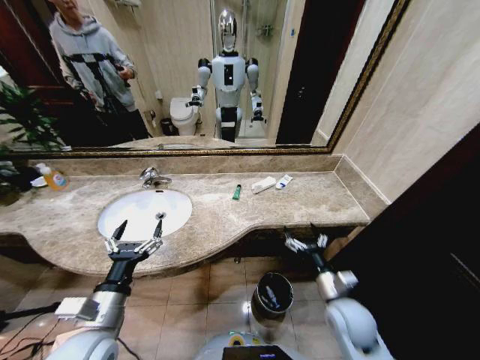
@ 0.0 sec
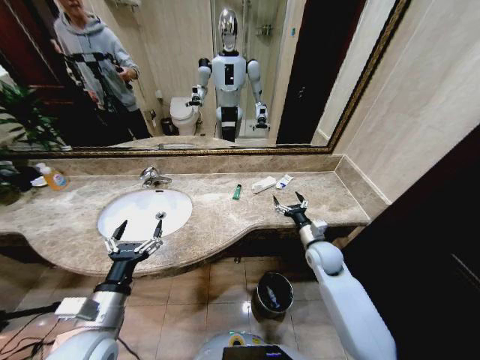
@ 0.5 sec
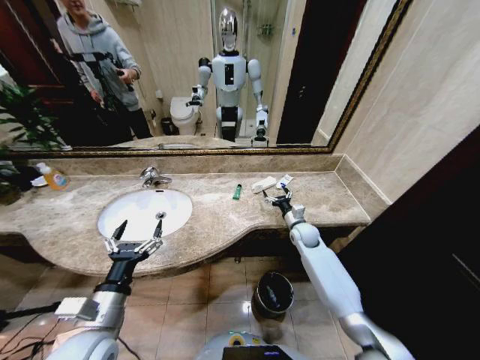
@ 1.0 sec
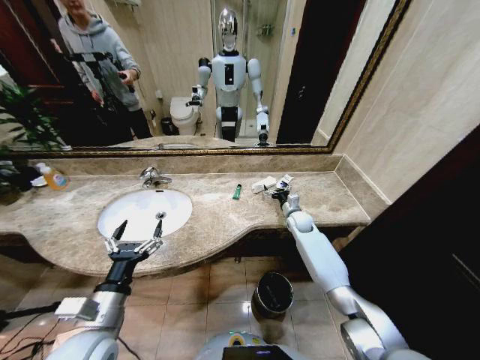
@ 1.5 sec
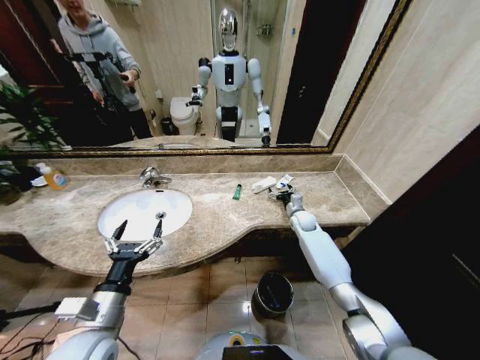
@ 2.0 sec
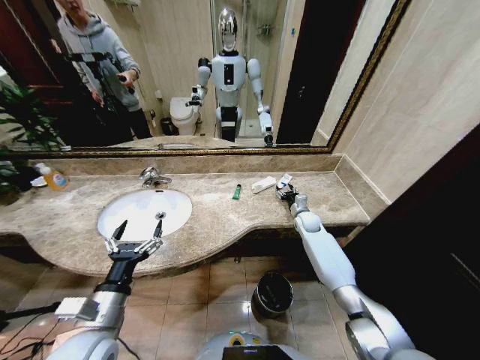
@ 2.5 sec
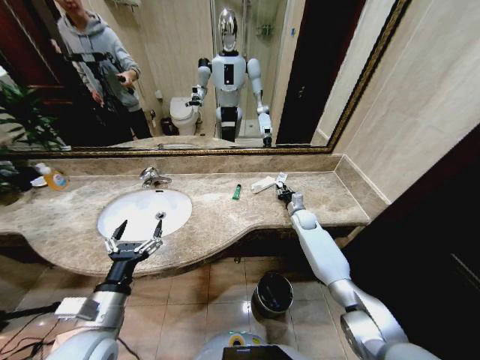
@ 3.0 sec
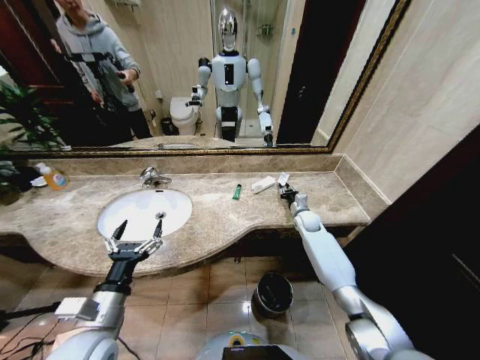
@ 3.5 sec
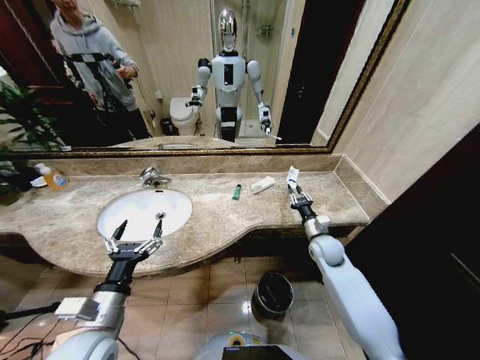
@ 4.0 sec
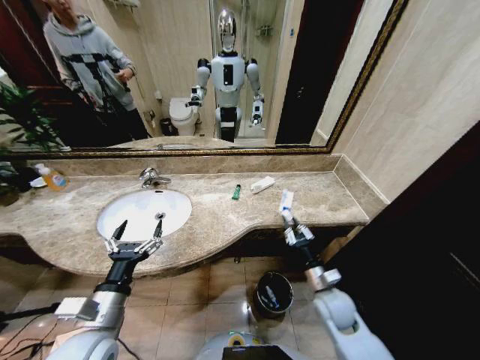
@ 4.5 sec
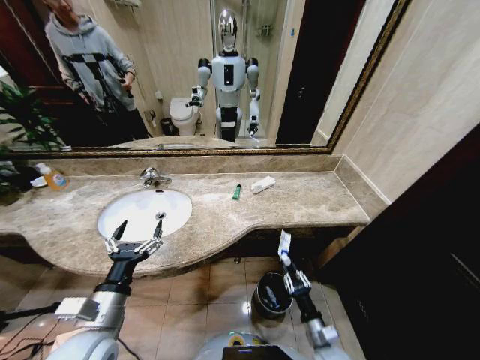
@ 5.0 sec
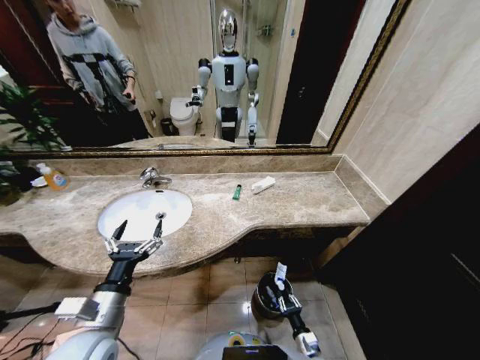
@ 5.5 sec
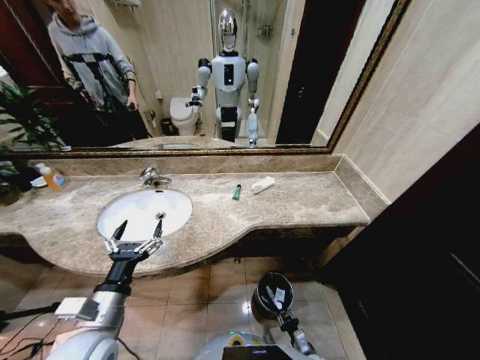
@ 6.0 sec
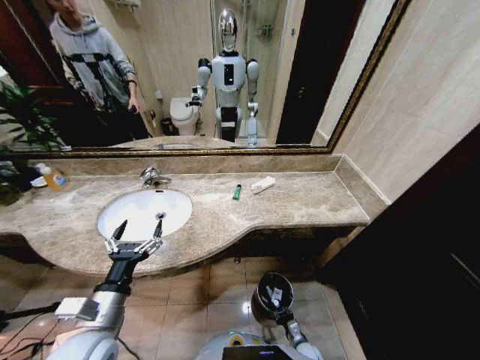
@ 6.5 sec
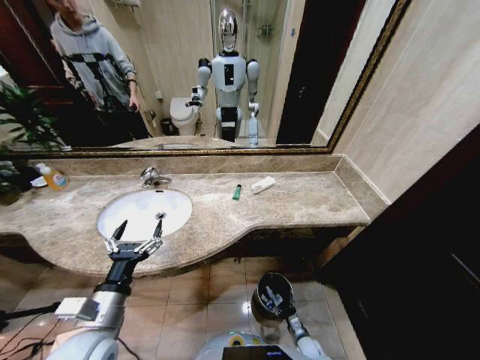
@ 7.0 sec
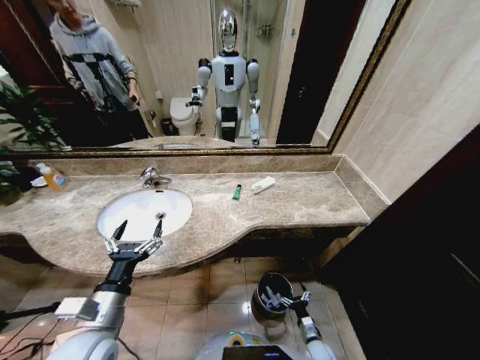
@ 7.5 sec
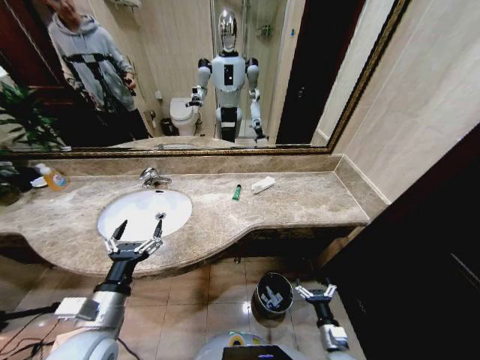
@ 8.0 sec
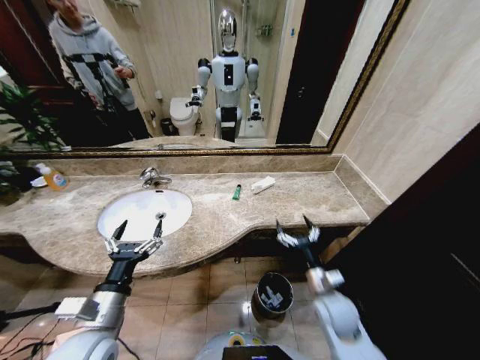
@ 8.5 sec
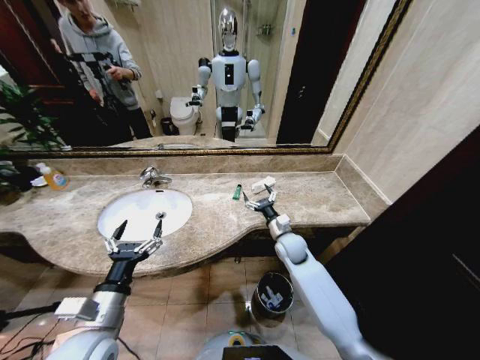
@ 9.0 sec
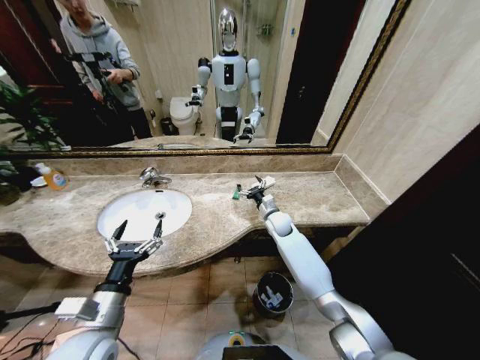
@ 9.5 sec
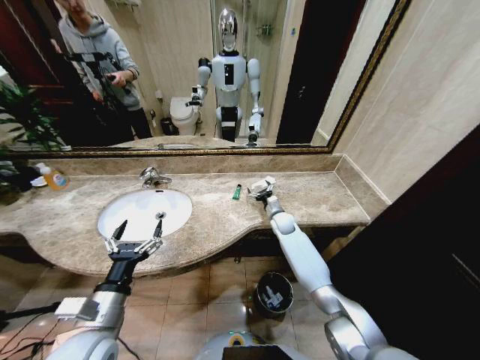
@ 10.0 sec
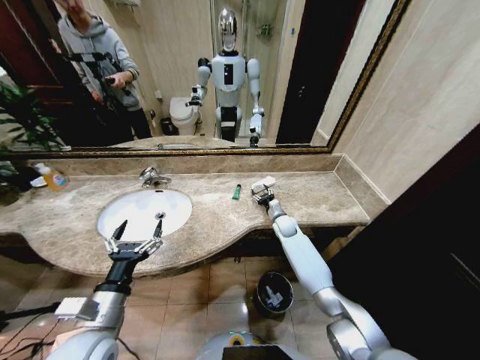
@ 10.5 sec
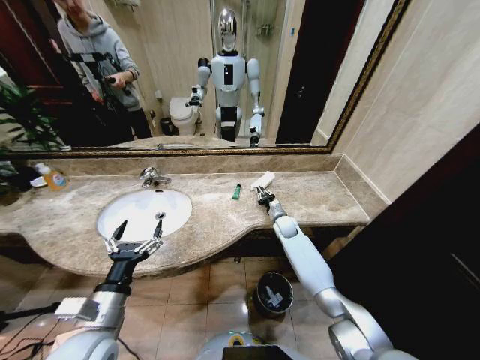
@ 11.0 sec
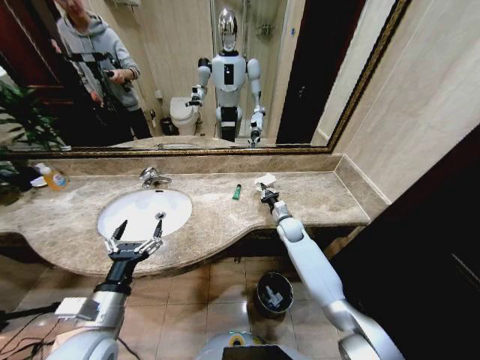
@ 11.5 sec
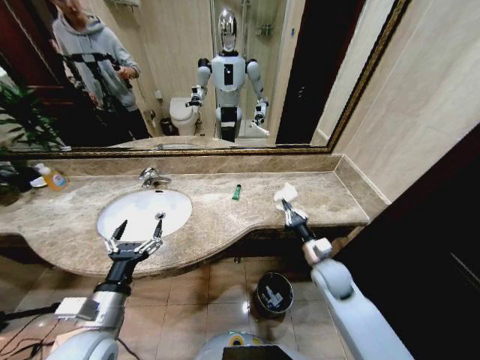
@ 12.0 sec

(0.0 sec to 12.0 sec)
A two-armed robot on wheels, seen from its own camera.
Task of the whole recording: Pick up the trash from the sink and place it in the trash bin.
0.0 sec - 2.0 sec: The right gripper travels forward by roughly 35 cm.
2.0 sec - 4.0 sec: The right gripper moves backward, approximately 15 cm, and closes up.
4.0 sec - 6.0 sec: The right gripper heads downward and backward, covering roughly 40 cm.
6.0 sec - 8.0 sec: The right gripper shifts some 15 cm upward, and opens up.
8.0 sec - 10.0 sec: The right gripper heads forward, covering about 40 cm.
10.0 sec - 12.0 sec: The right gripper travels backward by about 20 cm, and closes up.

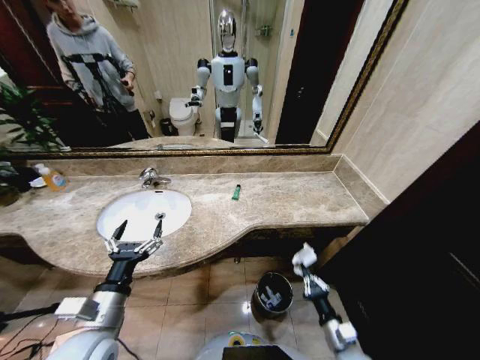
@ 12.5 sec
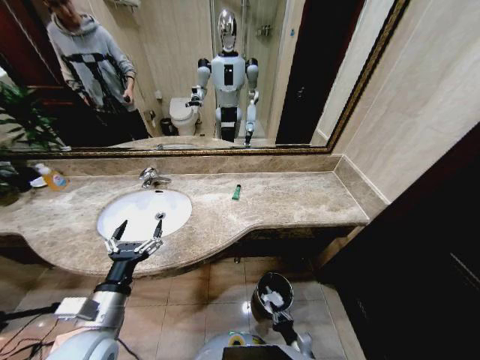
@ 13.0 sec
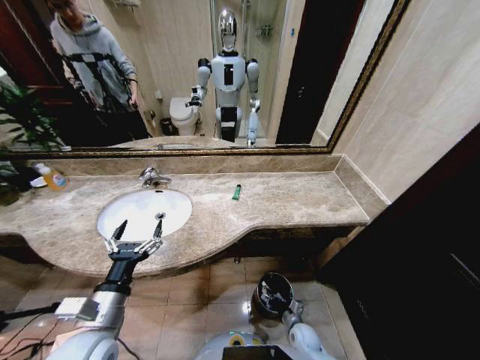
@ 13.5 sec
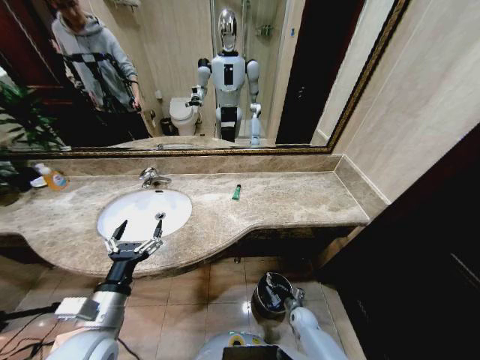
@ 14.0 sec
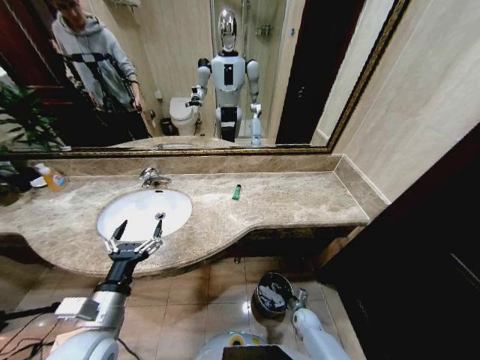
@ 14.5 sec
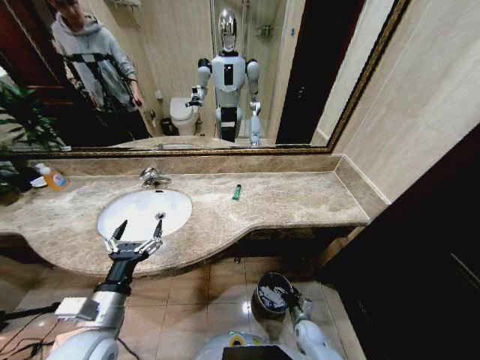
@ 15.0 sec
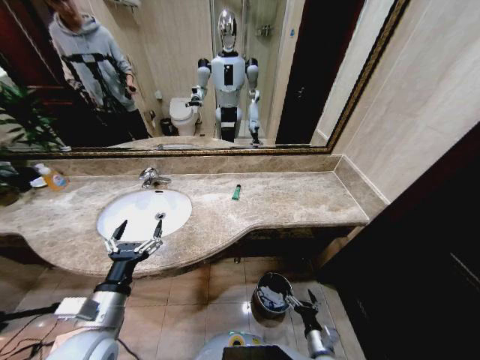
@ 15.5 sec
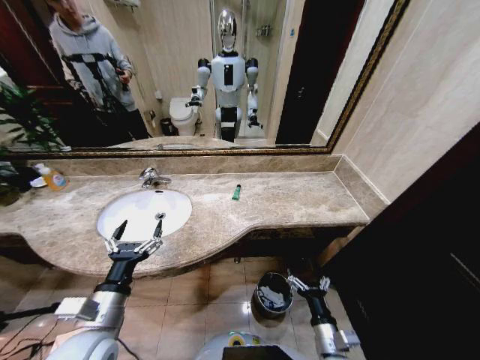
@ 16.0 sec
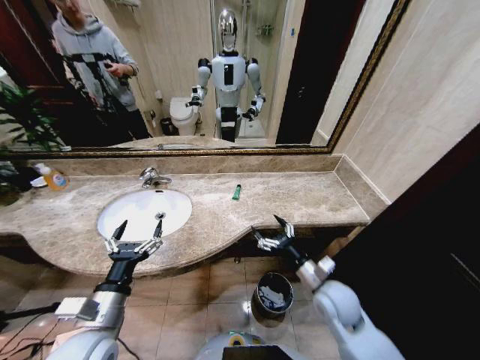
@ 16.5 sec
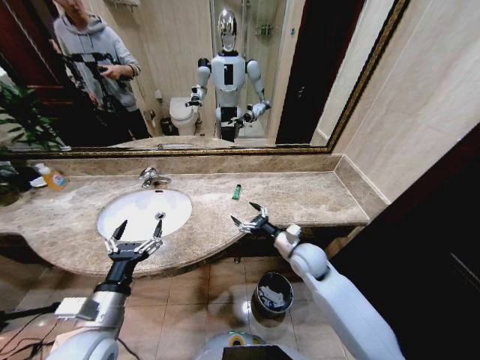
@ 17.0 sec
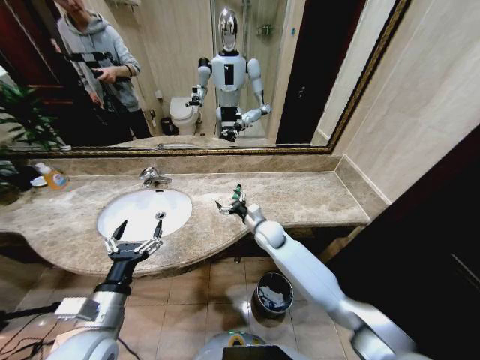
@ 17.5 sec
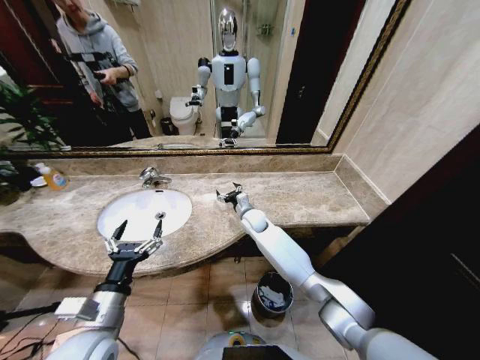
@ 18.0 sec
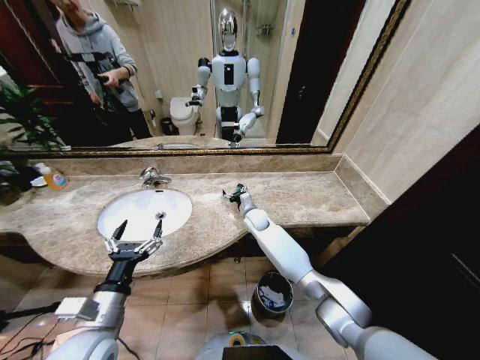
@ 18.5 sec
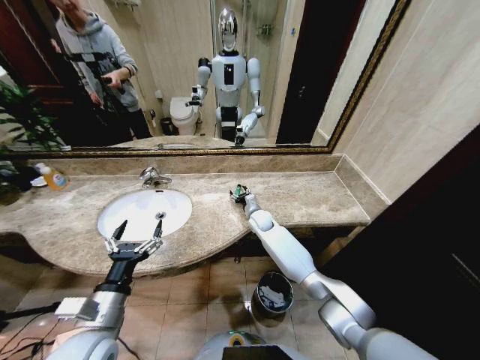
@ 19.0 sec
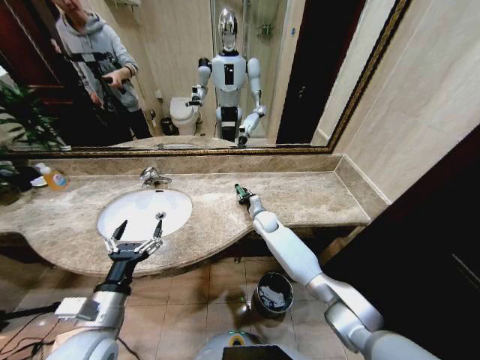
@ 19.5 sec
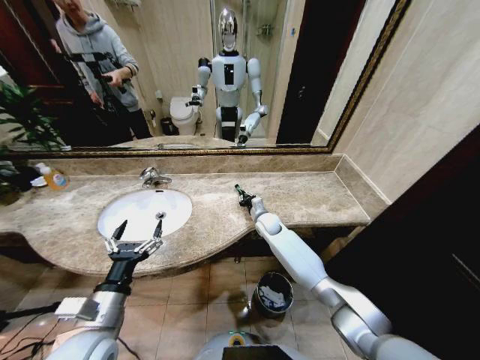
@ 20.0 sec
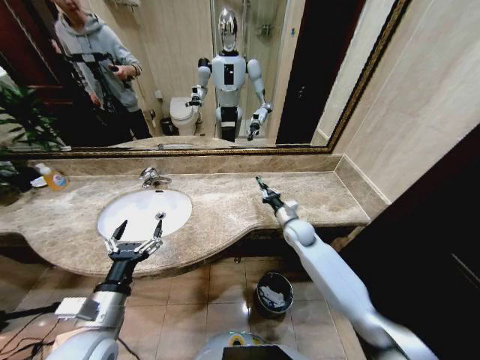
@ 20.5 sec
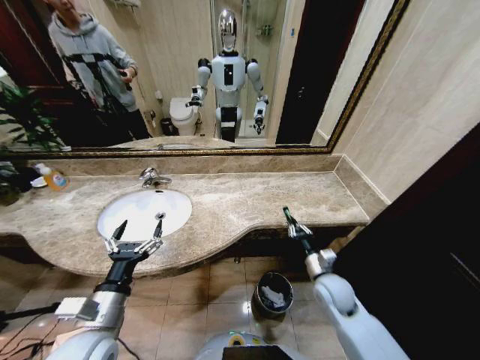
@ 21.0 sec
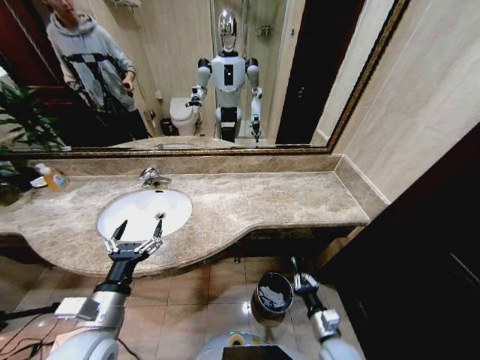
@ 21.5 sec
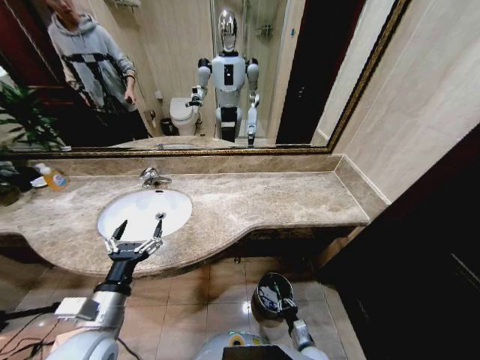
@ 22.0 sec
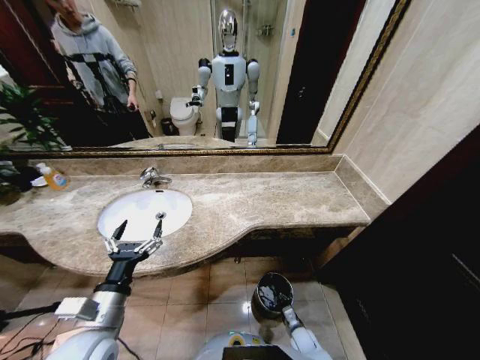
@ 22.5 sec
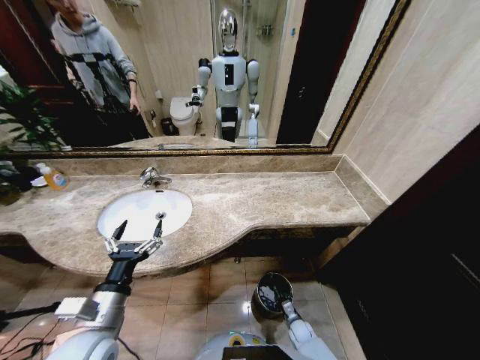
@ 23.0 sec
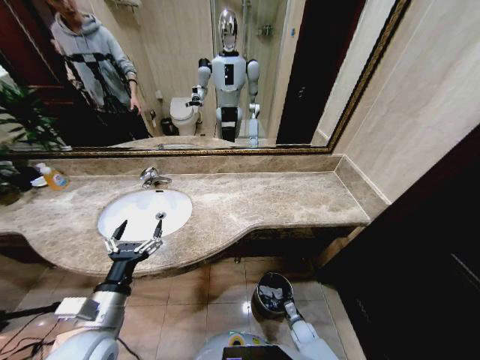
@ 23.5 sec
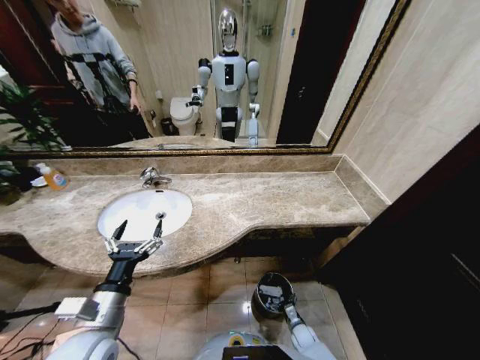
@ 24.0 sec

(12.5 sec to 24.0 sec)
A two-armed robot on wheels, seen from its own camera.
Task of the whole recording: Pick up the trash from the sink and place it in the trash bin.
12.5 sec - 14.5 sec: The right gripper moves downward and forward, some 25 cm, and opens up.
14.5 sec - 16.5 sec: The right gripper travels upward by some 35 cm, and opens up.
16.5 sec - 18.5 sec: The right gripper moves forward and to the left, approximately 35 cm.
18.5 sec - 20.0 sec: The right gripper ends up about 5 cm from where it was, and closes up.
20.0 sec - 22.0 sec: The right gripper is displaced backward and downward by approximately 40 cm.
22.0 sec - 24.0 sec: The right gripper heads downward and forward, covering approximately 10 cm, and opens.

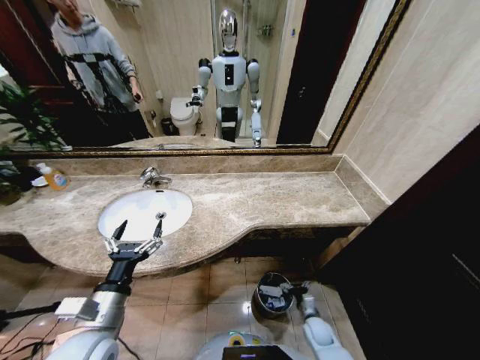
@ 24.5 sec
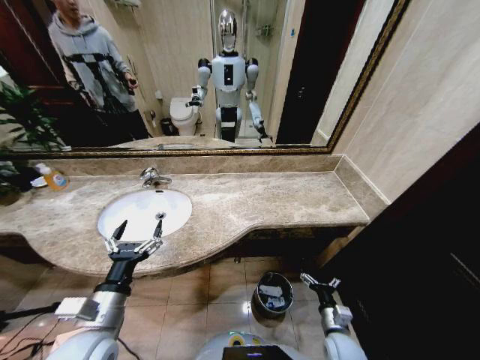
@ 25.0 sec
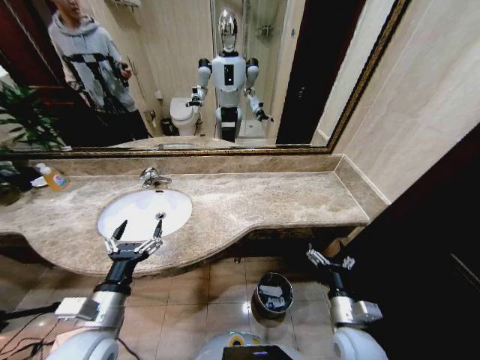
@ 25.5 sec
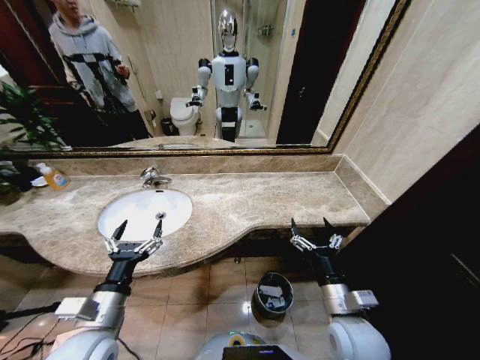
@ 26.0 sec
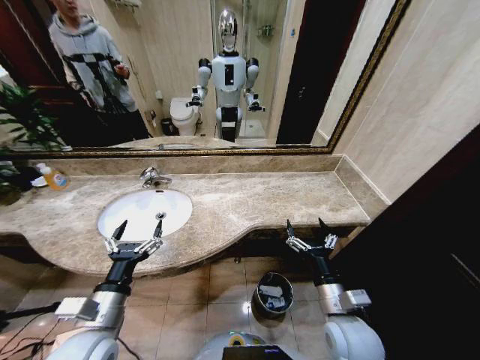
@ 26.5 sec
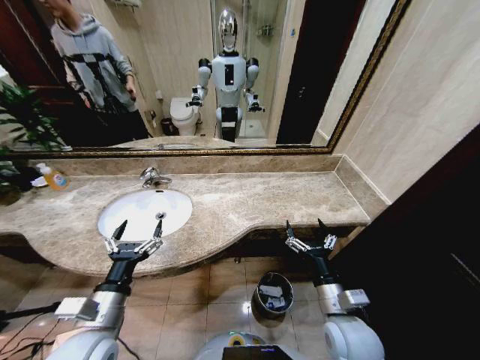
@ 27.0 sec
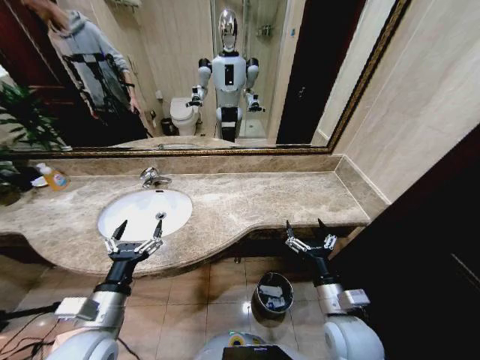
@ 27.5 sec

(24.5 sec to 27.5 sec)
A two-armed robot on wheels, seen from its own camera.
Task of the whole recording: Pick up the trash from the sink and place it in the trash bin.
24.5 sec - 26.0 sec: The right gripper moves upward, some 30 cm.
26.0 sec - 27.5 sec: The two grippers keep their place.
